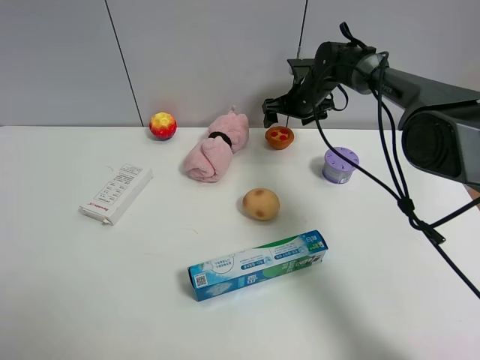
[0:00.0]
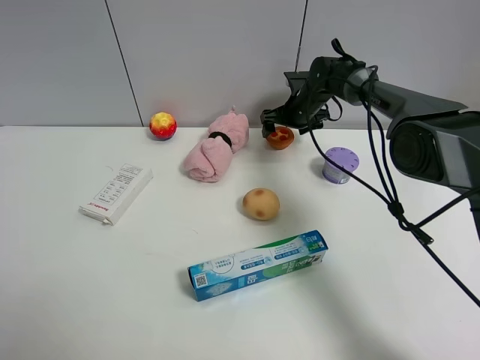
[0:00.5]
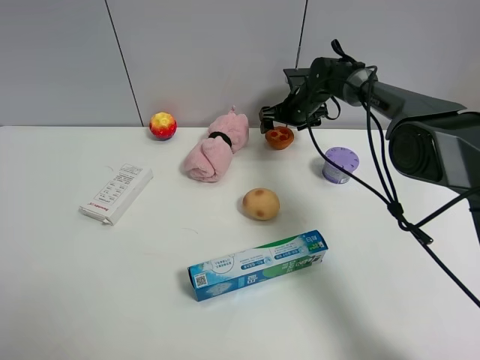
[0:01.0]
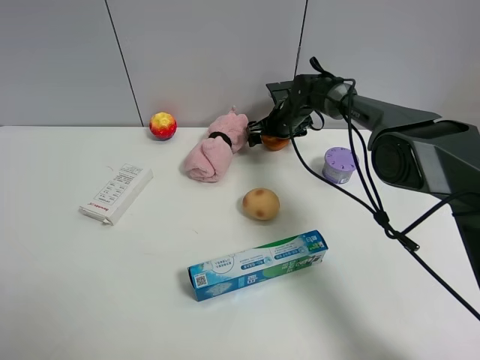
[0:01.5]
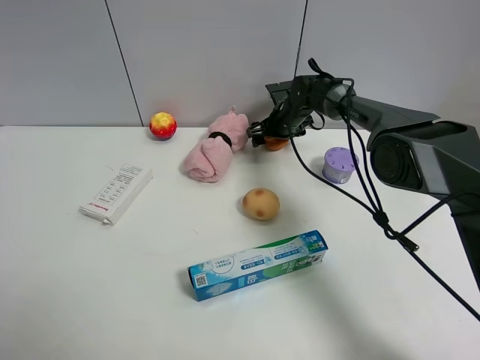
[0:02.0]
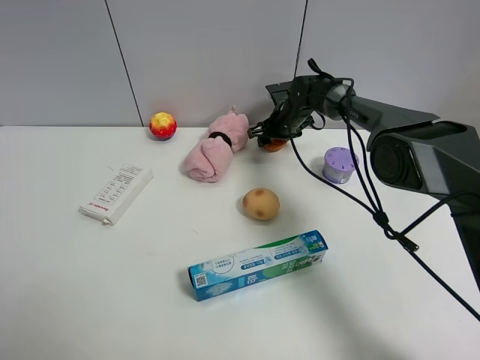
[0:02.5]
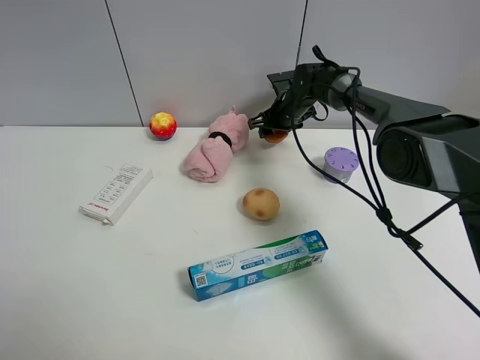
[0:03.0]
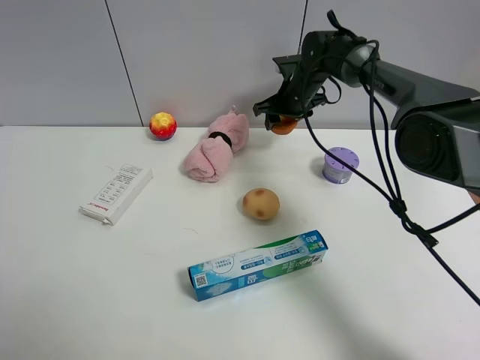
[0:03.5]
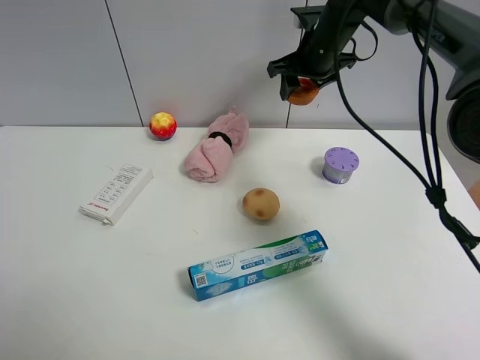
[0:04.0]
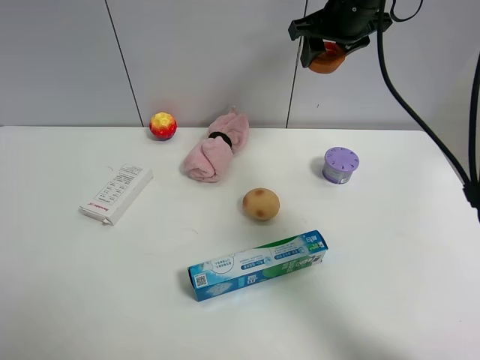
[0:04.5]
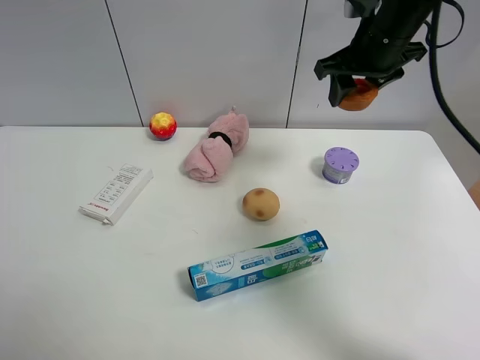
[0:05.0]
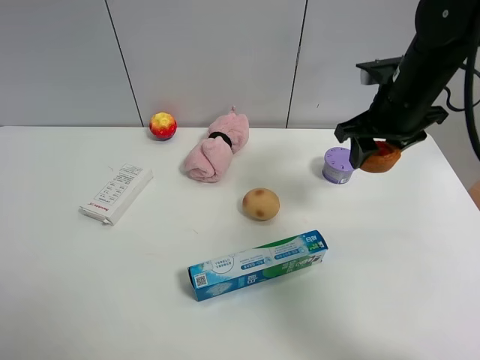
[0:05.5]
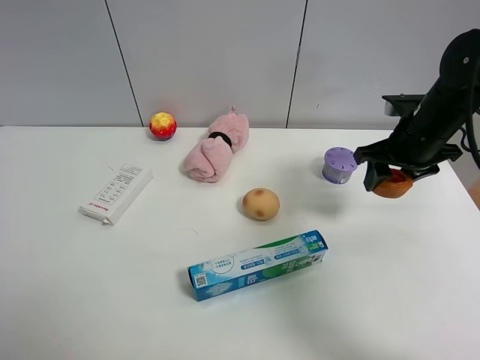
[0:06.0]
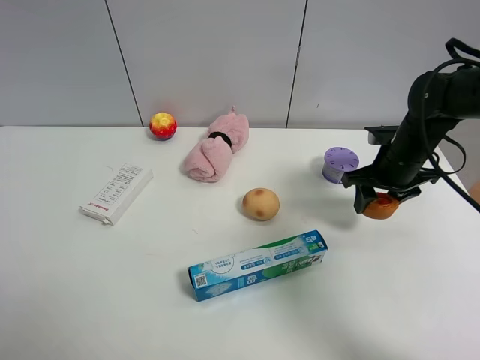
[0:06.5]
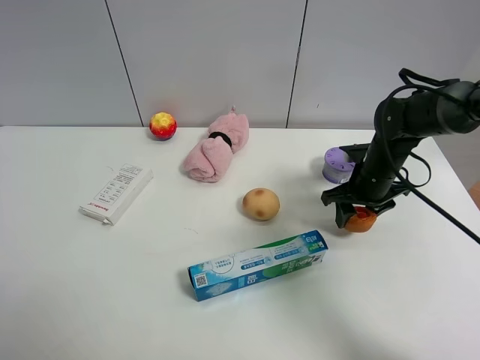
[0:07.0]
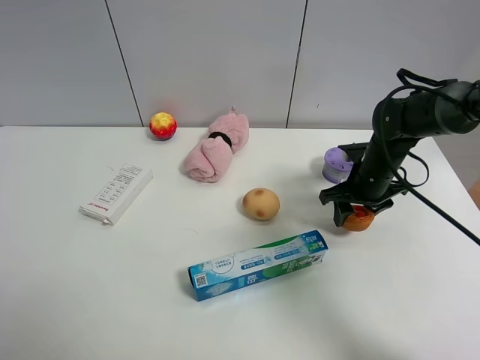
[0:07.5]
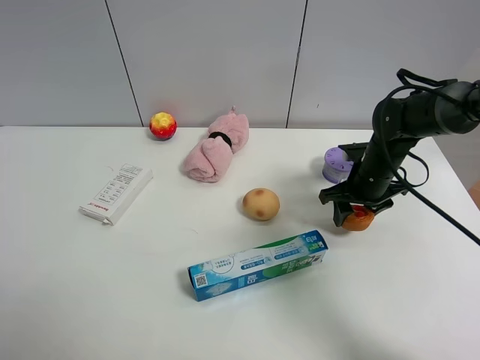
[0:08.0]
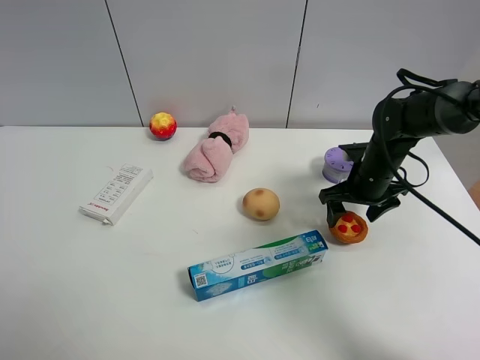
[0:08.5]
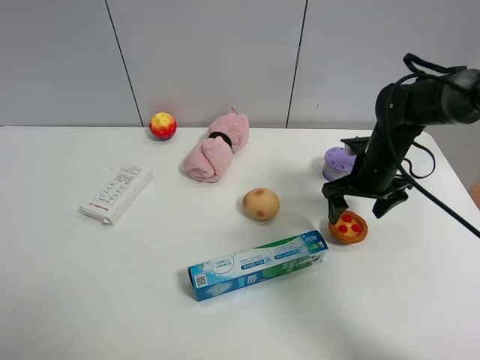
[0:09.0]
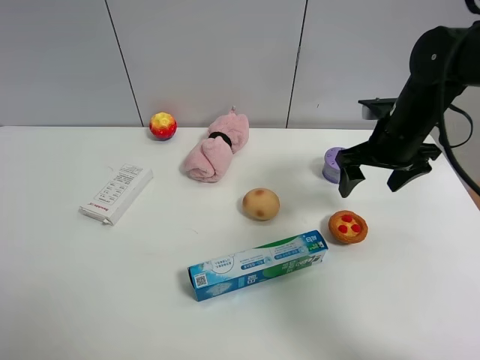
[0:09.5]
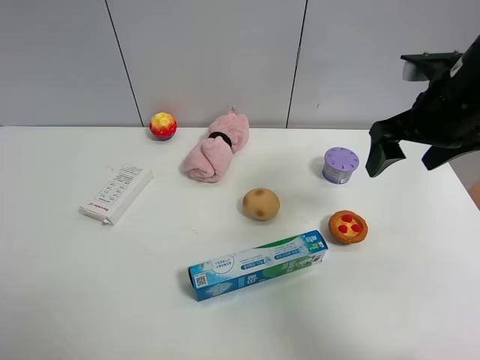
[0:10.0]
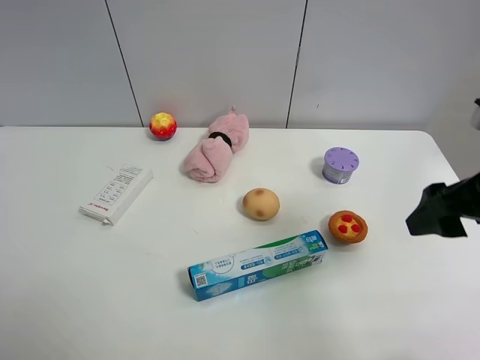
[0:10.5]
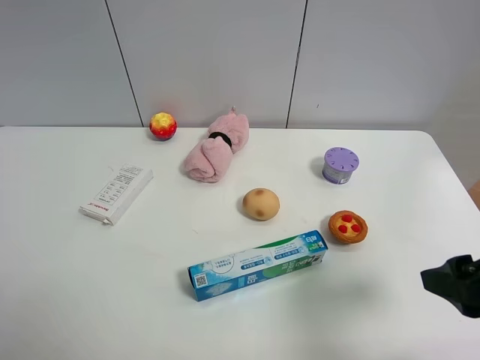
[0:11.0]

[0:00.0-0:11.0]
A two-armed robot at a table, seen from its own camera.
Task of the whole recording: the gripper move the object.
Step, 0:00.0 to 0:02.0: Grasp the egg tart with the right gripper.
Step, 0:02.5 to 0:08.0: Place the egg tart on the table with the right gripper.
0:00.0 to 0:02.0: The right gripper goes about 5 cm downward.
0:02.0 to 0:03.5: The right gripper goes roughly 10 cm upward, and closes.
0:03.5 to 0:05.5: The right gripper shifts some 20 cm backward, to the right and upward.
0:05.5 to 0:07.5: The right gripper moves downward, some 15 cm.
0:07.5 to 0:09.0: The right gripper opens its fingers.
0:09.0 to 0:11.0: The right gripper is displaced backward and upward by approximately 30 cm.

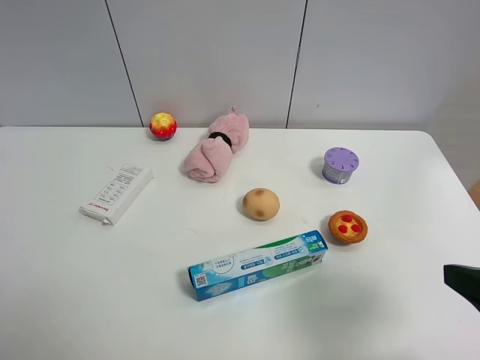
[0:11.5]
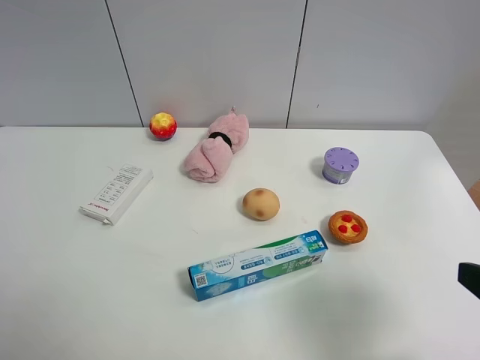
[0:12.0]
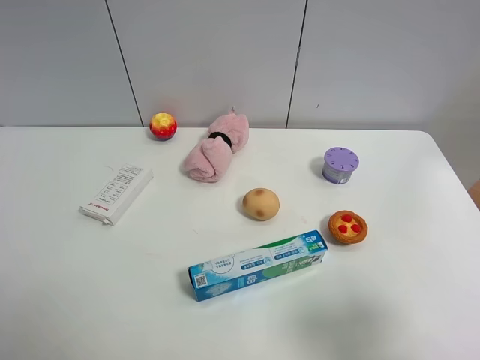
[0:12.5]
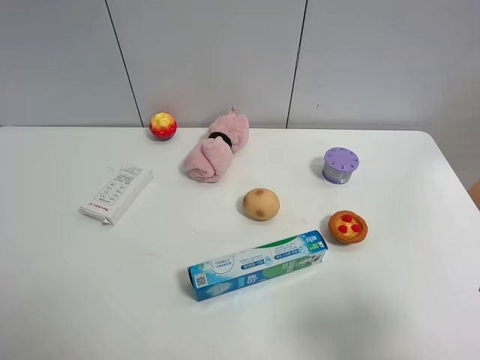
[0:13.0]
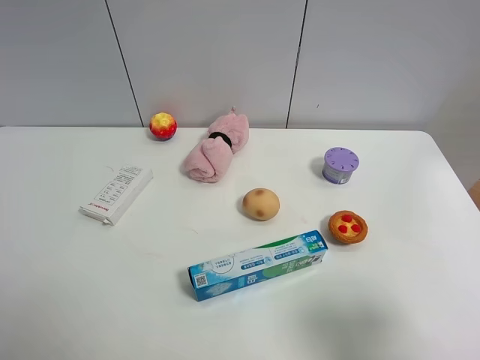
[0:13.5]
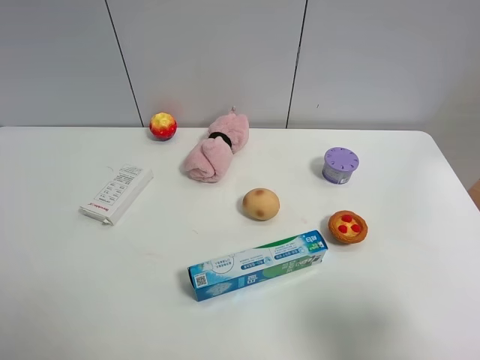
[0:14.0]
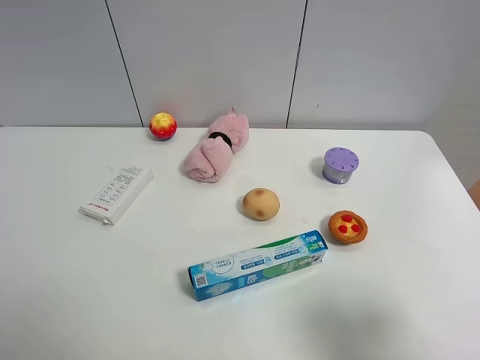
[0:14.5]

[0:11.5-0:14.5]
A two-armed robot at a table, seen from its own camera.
Task of the whole recording: the gripper move the object.
0:11.5 to 0:13.0: The right gripper moves backward, some 5 cm.
